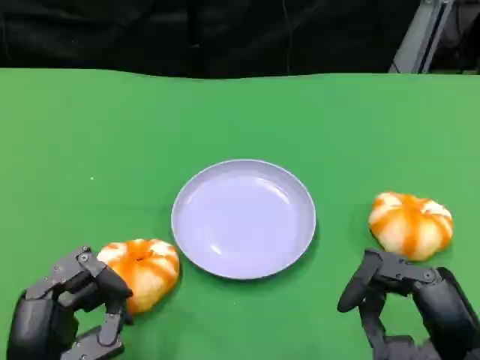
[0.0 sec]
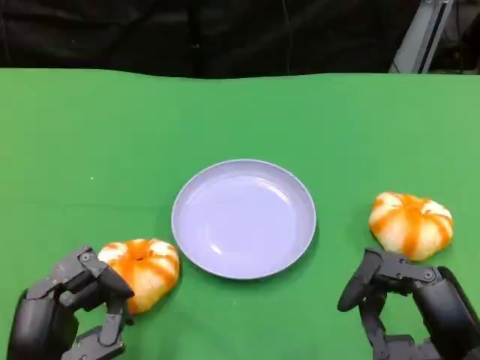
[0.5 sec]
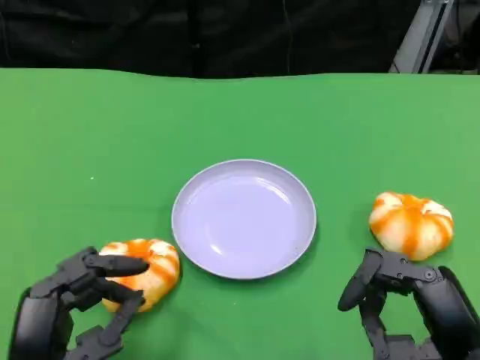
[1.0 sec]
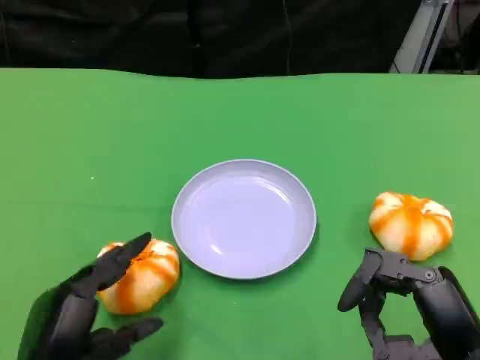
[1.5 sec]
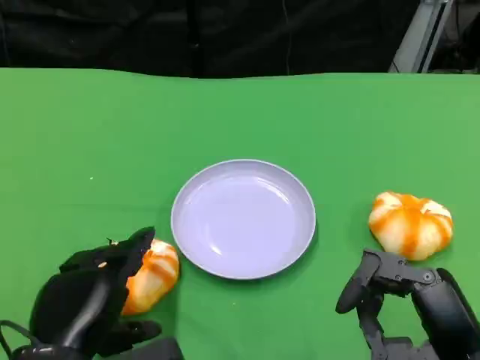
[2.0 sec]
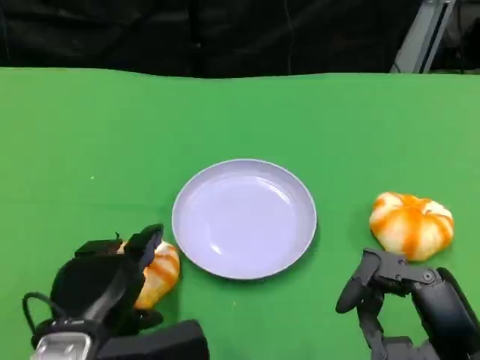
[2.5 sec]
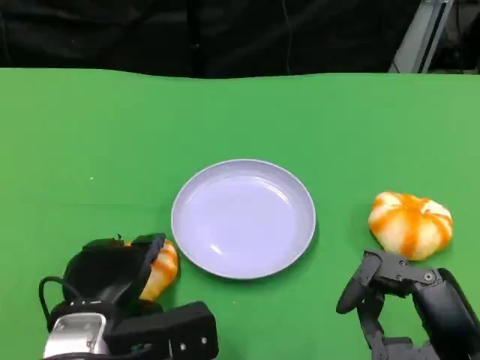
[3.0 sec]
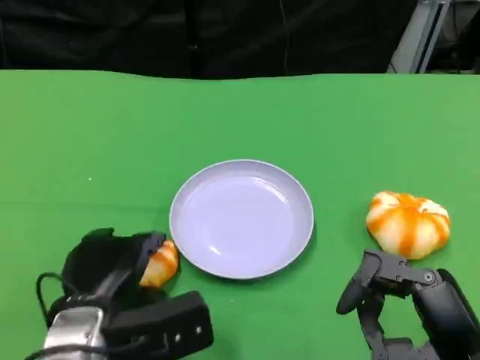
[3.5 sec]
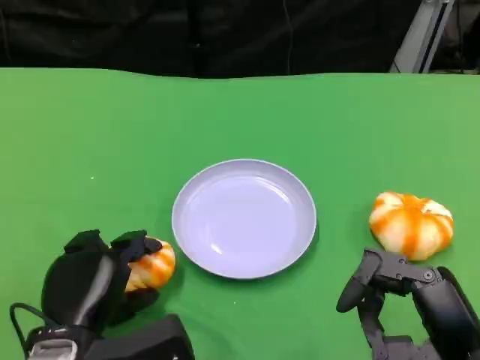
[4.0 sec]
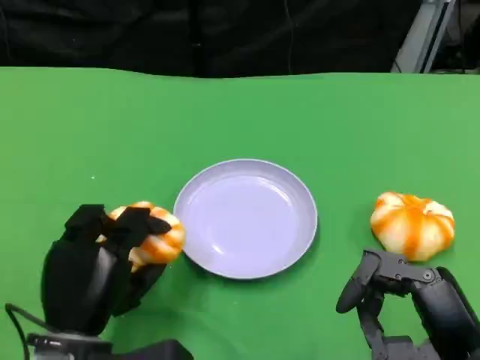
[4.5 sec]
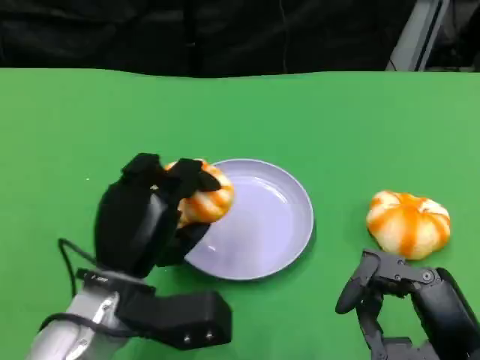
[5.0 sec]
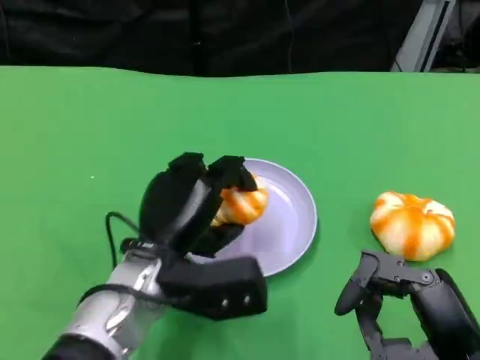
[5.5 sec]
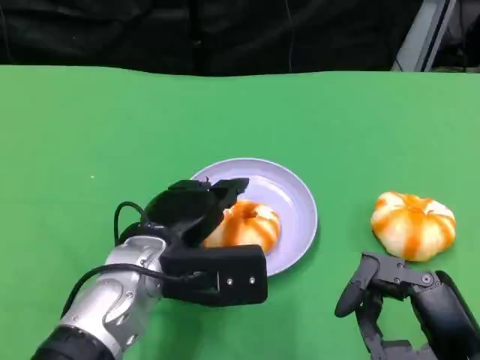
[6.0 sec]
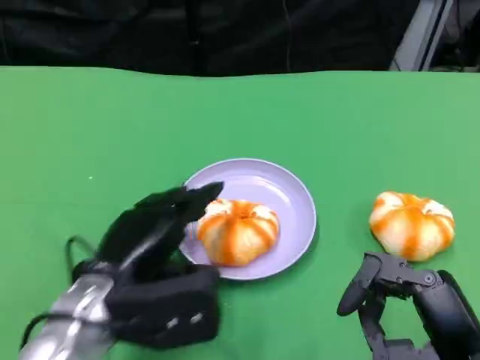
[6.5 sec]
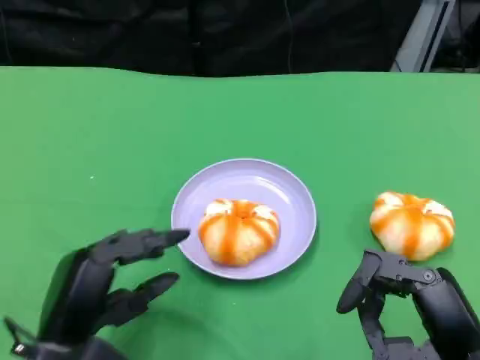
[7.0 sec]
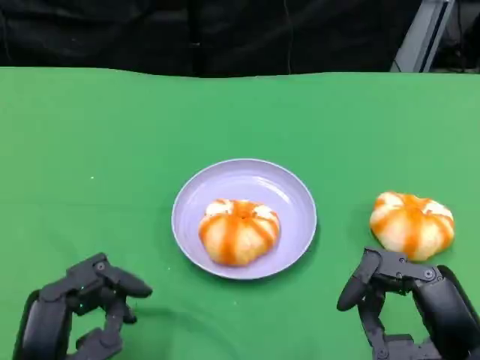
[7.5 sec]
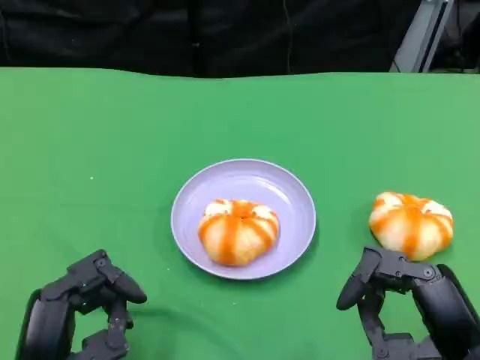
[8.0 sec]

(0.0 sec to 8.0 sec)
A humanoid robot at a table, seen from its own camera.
Task of the whole recording: Grasp the bread from the table and place it into the plate.
4.0 sec - 6.0 sec: The left hand goes some 10 cm forward and to the right.
6.0 sec - 8.0 sec: The left hand goes approximately 15 cm backward and to the left.

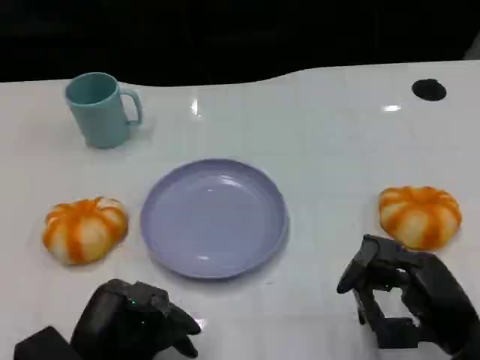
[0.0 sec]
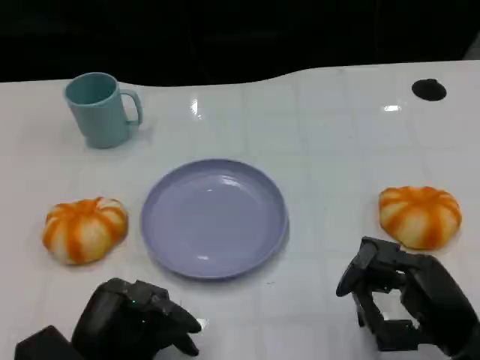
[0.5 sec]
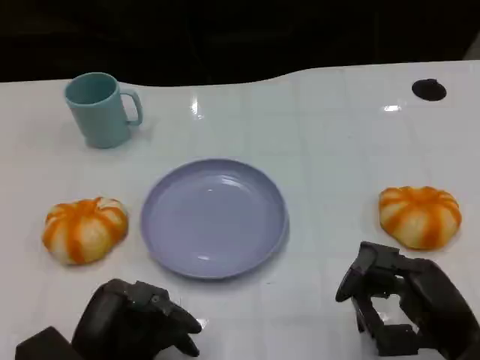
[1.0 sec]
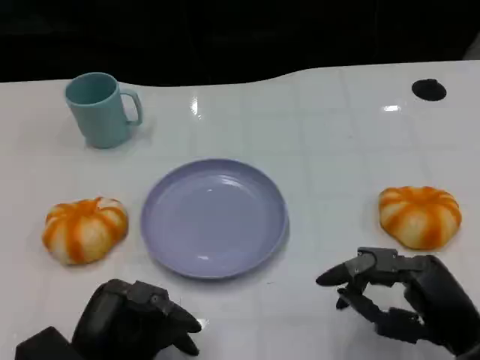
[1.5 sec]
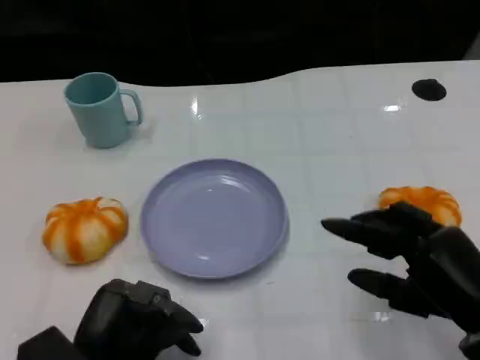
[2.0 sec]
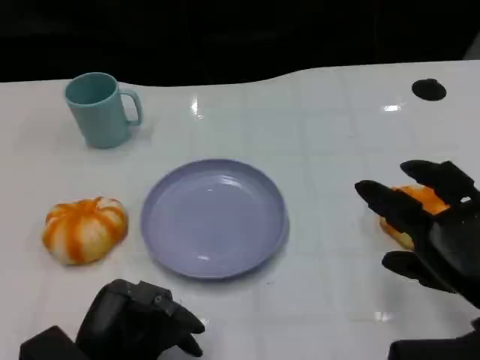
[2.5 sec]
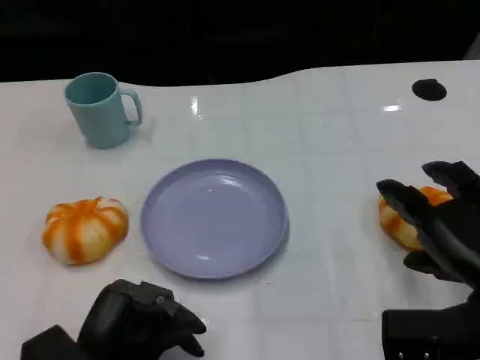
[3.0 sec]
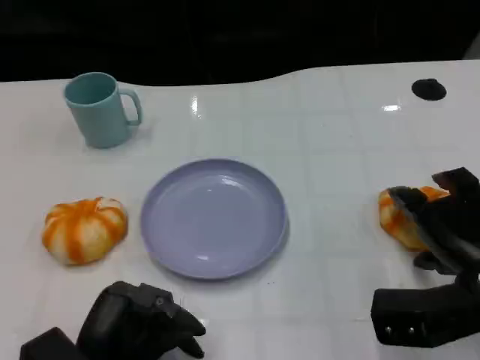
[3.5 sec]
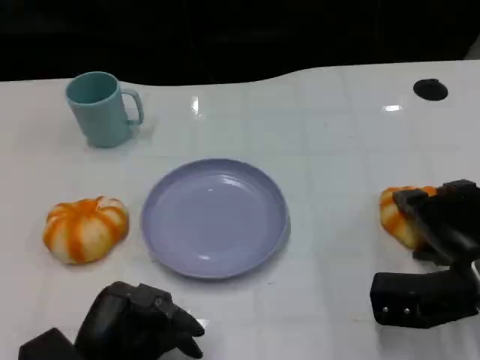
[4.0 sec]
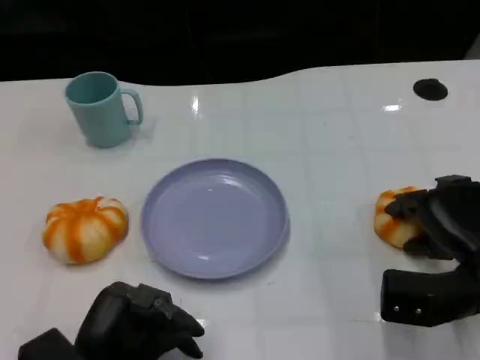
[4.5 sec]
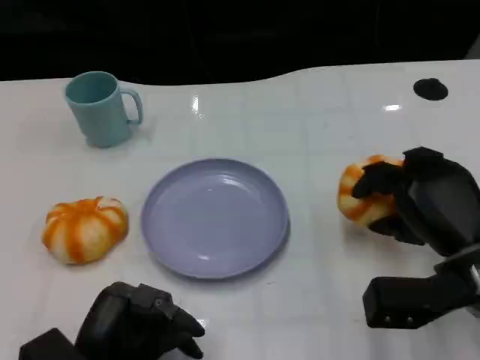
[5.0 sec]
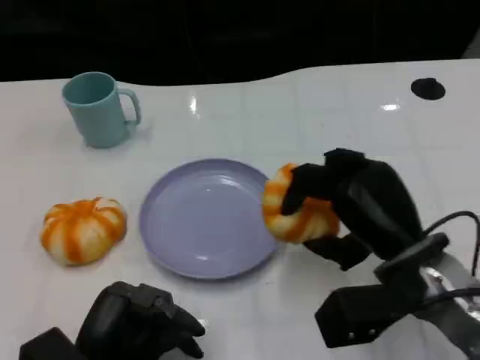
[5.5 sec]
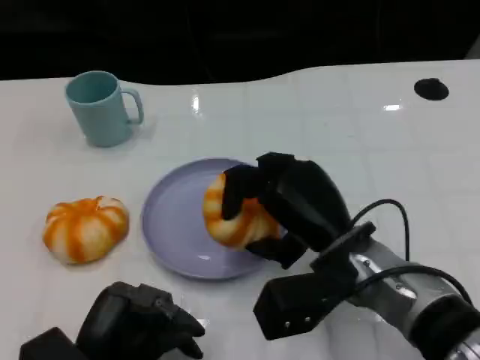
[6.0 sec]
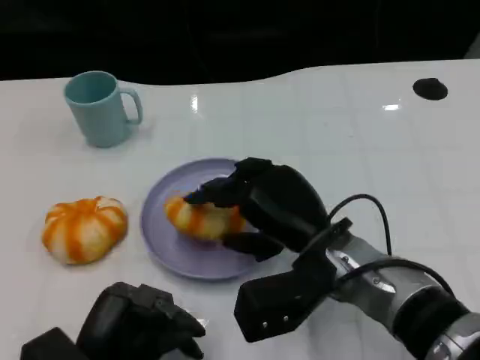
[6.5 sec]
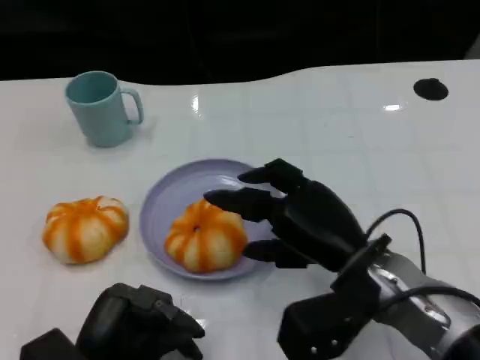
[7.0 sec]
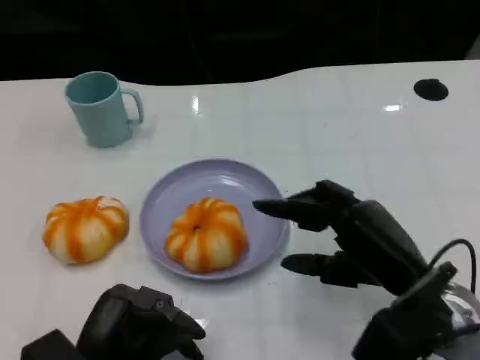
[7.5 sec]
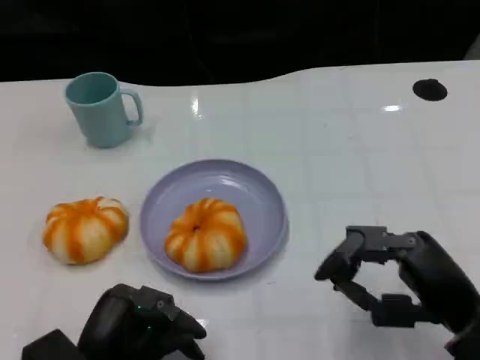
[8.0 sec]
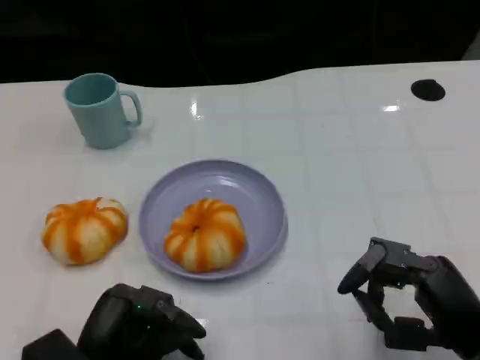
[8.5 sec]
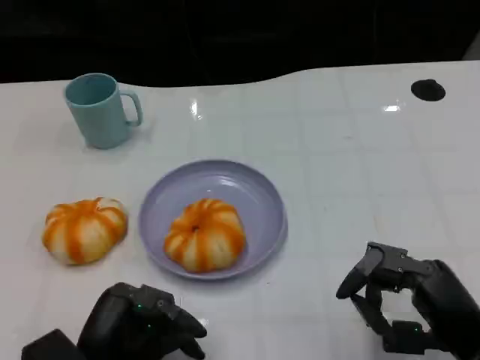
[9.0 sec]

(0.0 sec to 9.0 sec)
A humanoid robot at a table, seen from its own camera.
Task of the whole recording: Grasp the bread from the table and place it into the plate.
2.0 sec - 4.5 sec: The right hand is displaced forward by some 10 cm.
4.5 sec - 7.0 sec: The right hand moves to the left, about 10 cm.
7.0 sec - 9.0 sec: The right hand moves to the right and backward, approximately 15 cm.

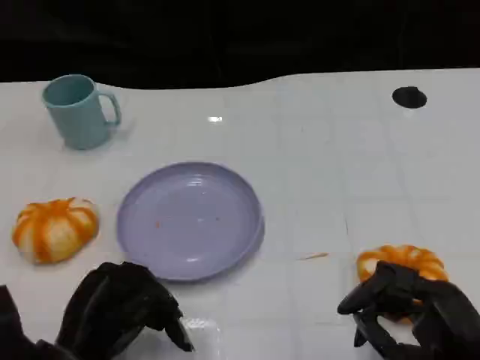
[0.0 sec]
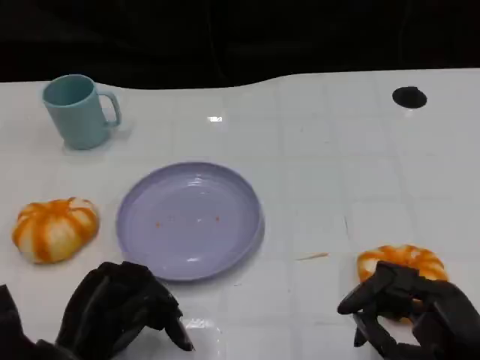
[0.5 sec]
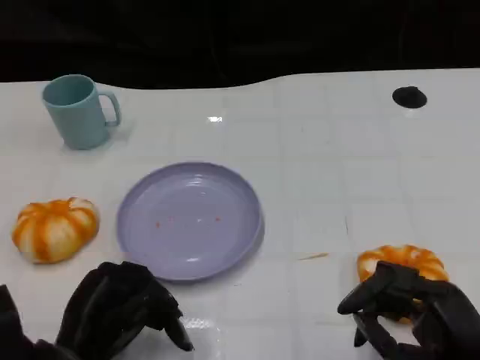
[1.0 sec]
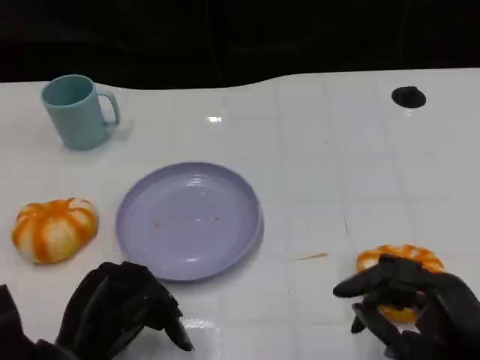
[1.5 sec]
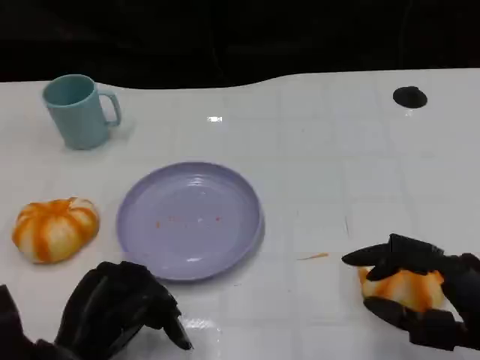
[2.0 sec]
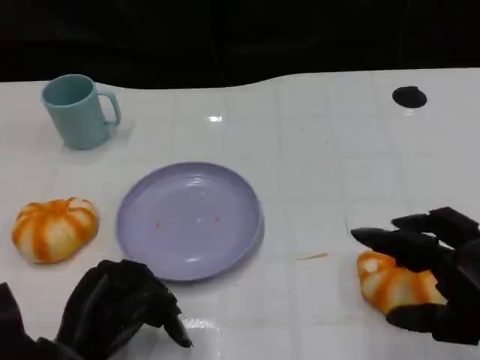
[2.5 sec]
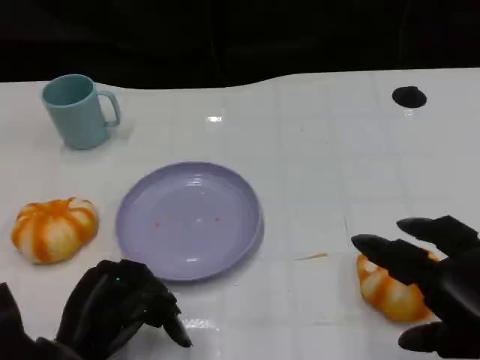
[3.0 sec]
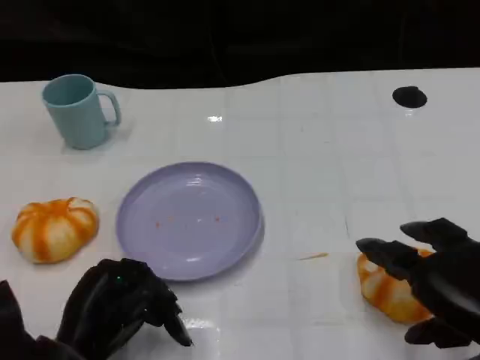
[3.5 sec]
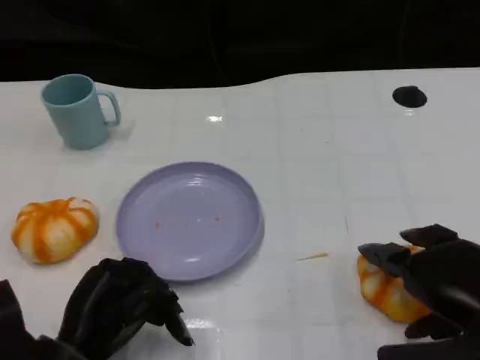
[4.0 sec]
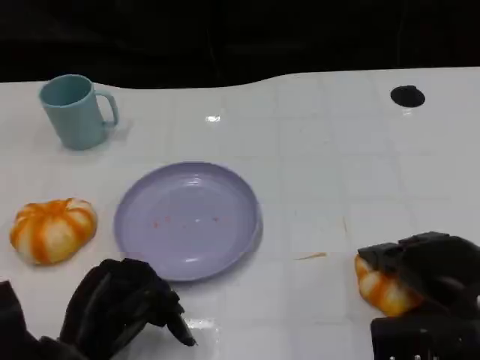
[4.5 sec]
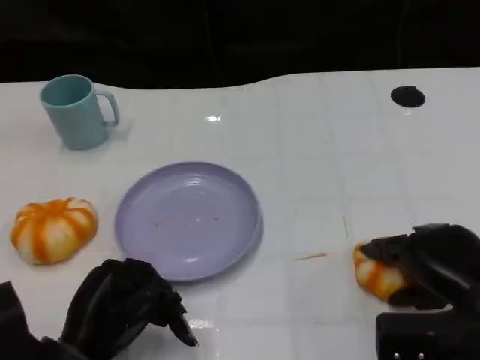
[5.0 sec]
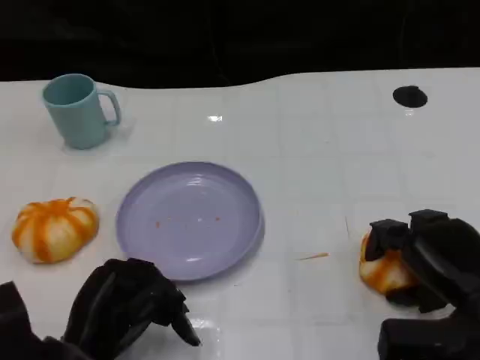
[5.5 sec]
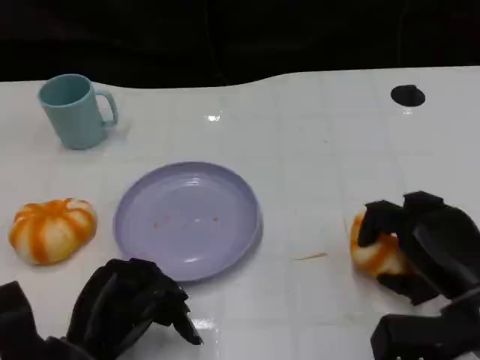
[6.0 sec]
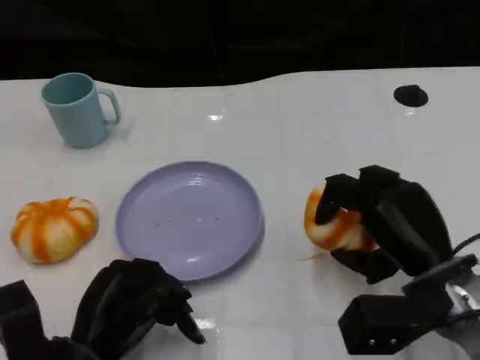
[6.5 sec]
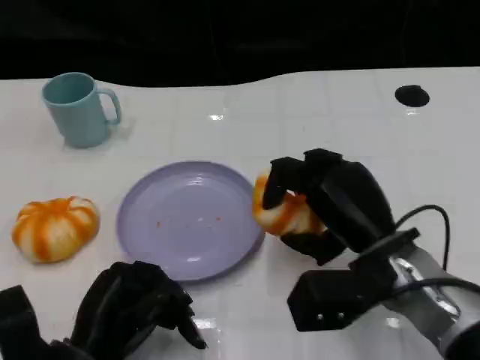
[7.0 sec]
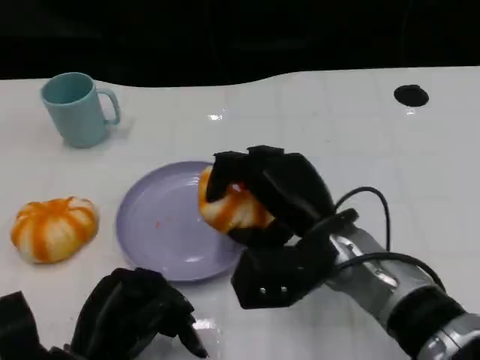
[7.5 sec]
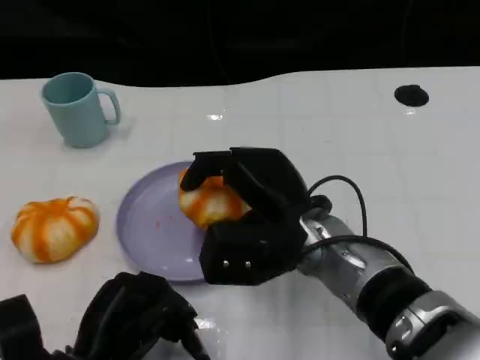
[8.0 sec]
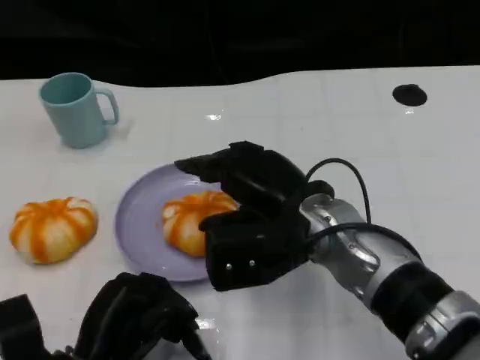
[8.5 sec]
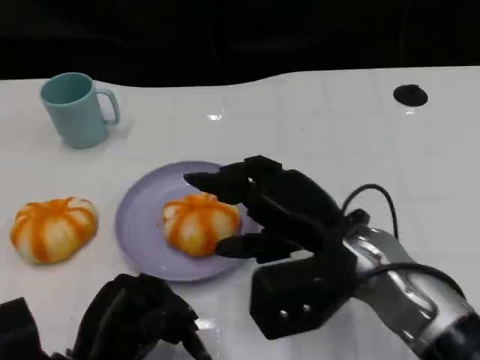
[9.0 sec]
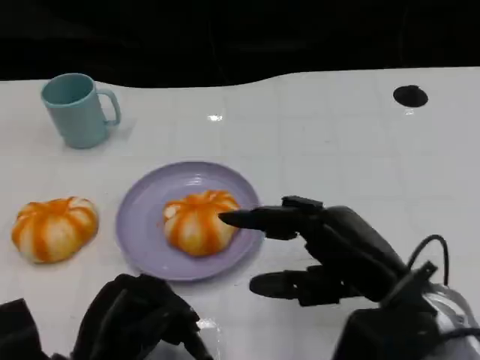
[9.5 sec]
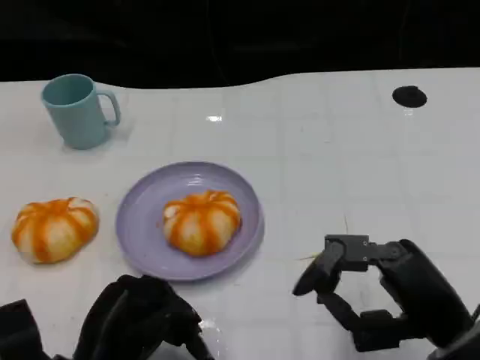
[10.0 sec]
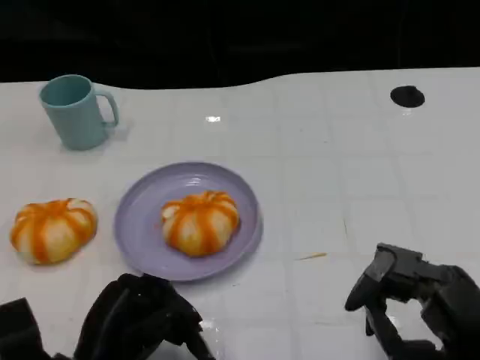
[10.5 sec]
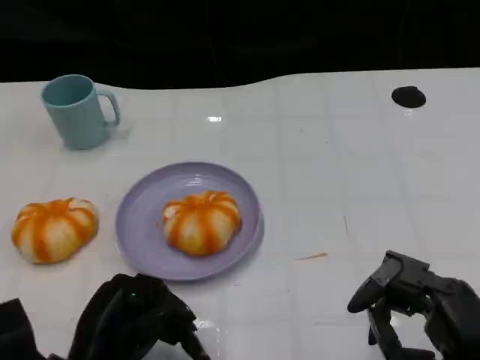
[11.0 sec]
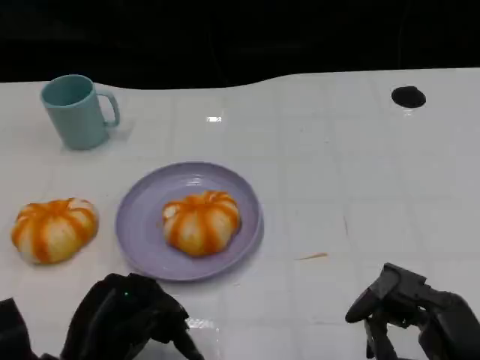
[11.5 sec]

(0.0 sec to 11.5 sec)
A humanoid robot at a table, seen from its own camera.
Task of the whole recording: Grasp the bread from the table and place it into the plate.
4.0 sec - 6.0 sec: The right hand is displaced downward by some 5 cm.
6.0 sec - 7.5 sec: The right hand heads to the left, covering roughly 15 cm.
7.5 sec - 9.5 sec: The right hand heads to the right and backward, covering roughly 10 cm.
9.5 sec - 11.5 sec: The right hand heads backward and to the right, covering about 10 cm.
